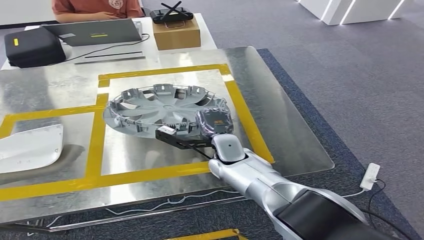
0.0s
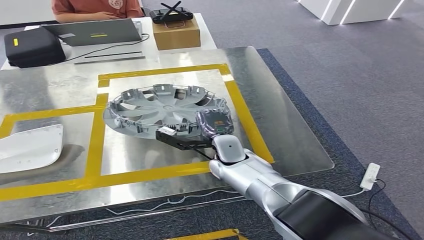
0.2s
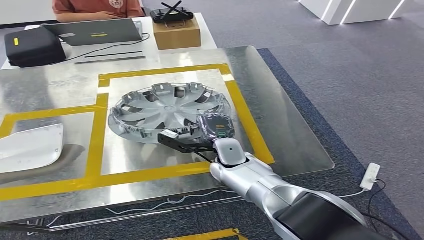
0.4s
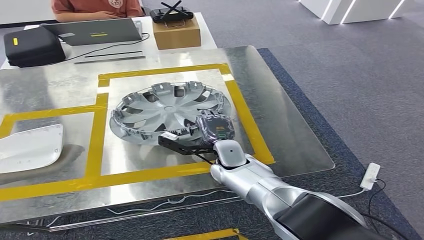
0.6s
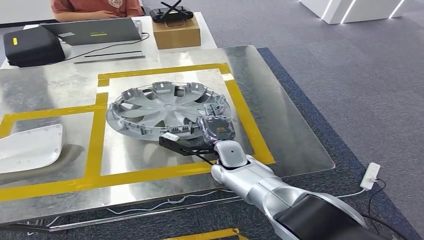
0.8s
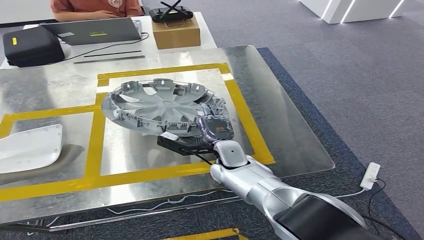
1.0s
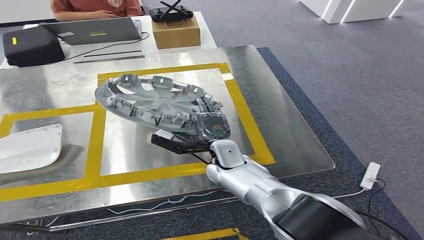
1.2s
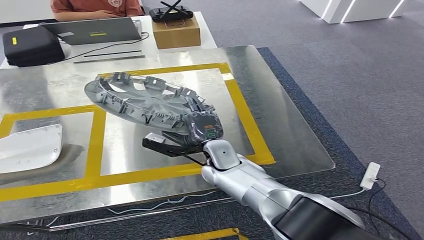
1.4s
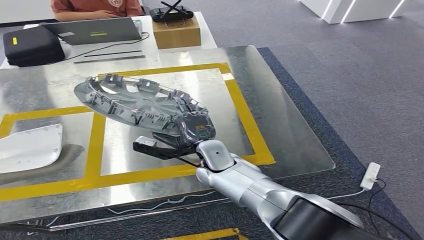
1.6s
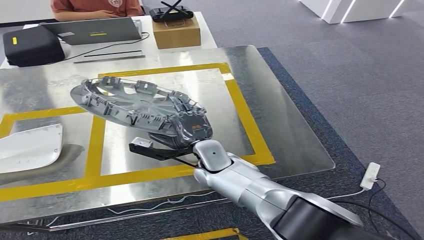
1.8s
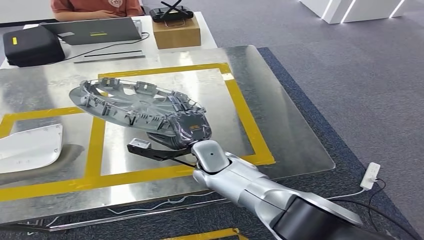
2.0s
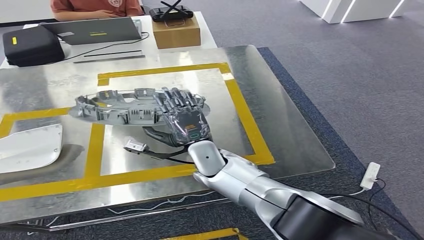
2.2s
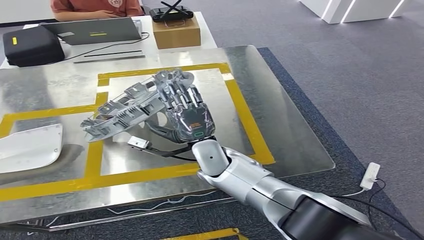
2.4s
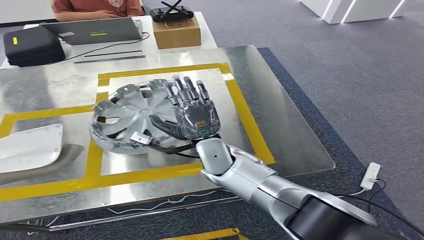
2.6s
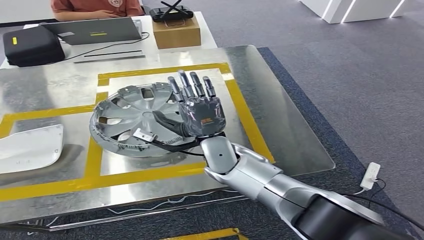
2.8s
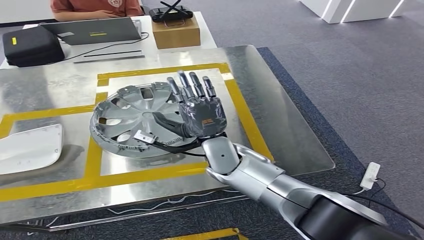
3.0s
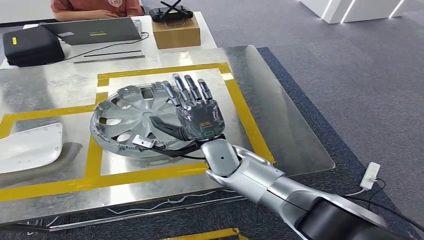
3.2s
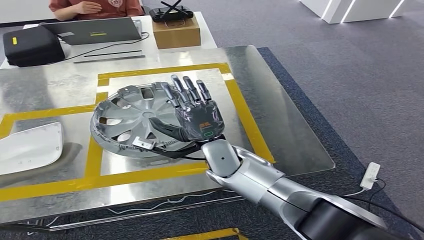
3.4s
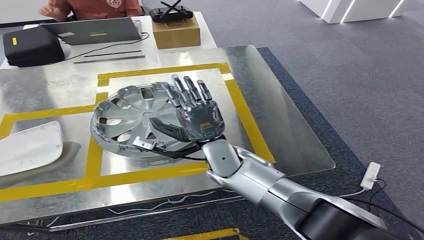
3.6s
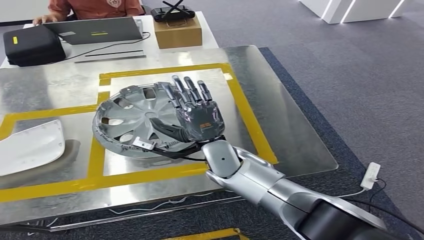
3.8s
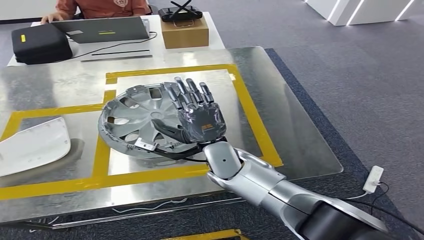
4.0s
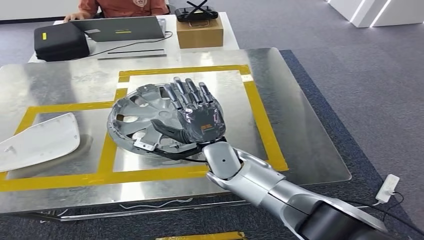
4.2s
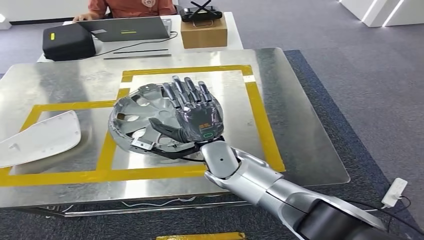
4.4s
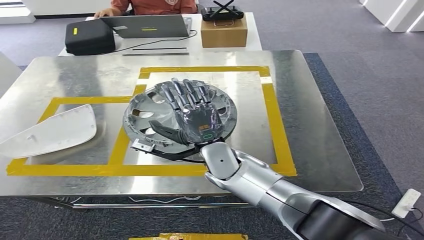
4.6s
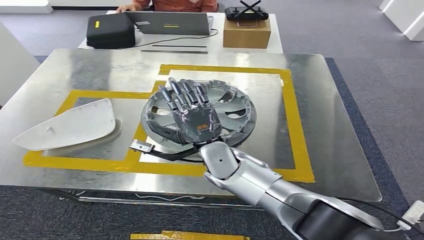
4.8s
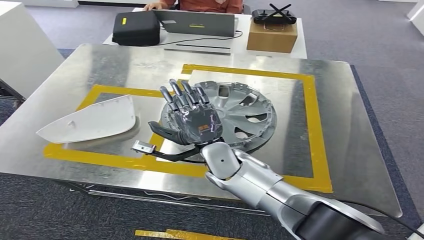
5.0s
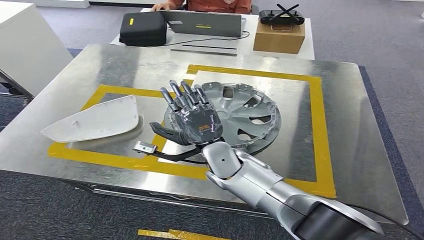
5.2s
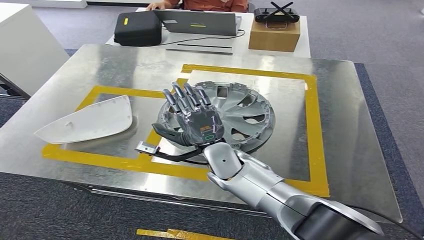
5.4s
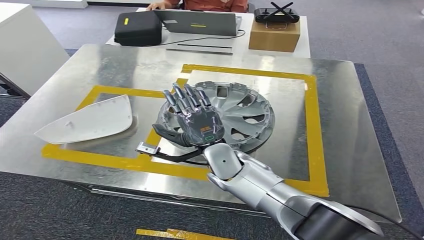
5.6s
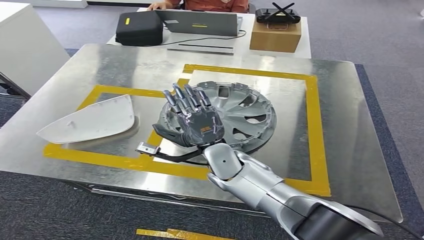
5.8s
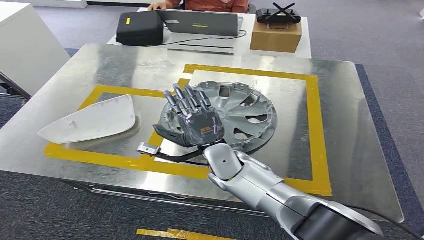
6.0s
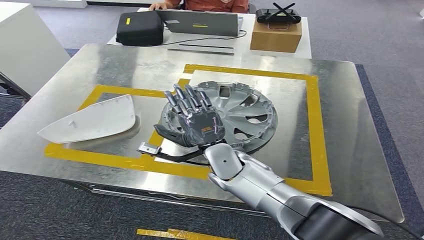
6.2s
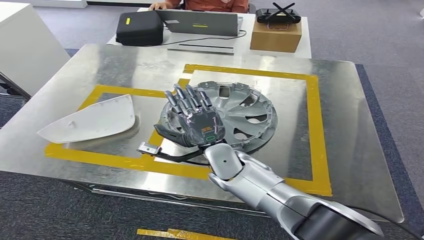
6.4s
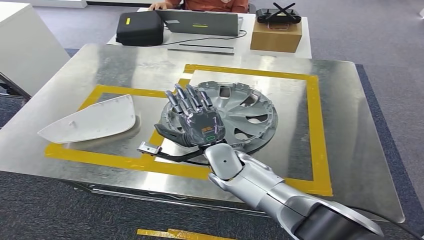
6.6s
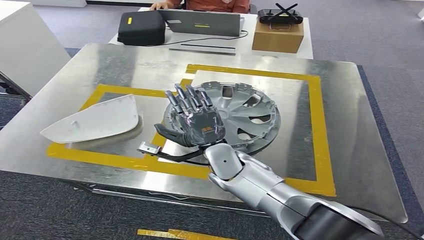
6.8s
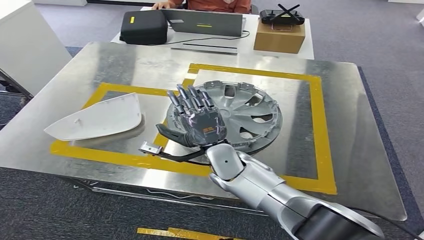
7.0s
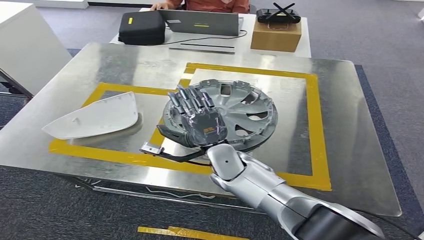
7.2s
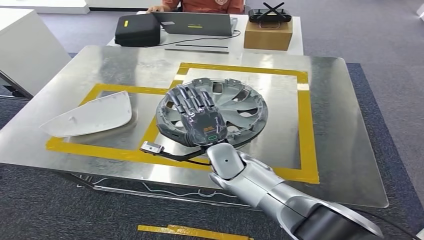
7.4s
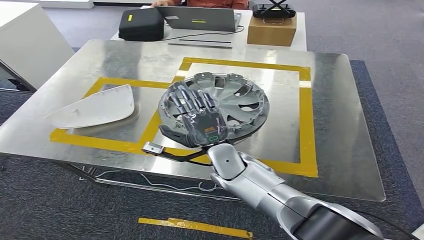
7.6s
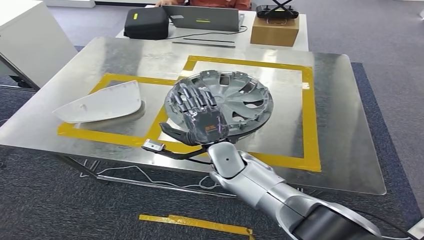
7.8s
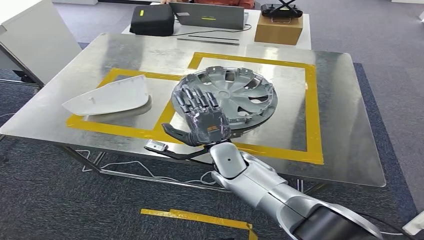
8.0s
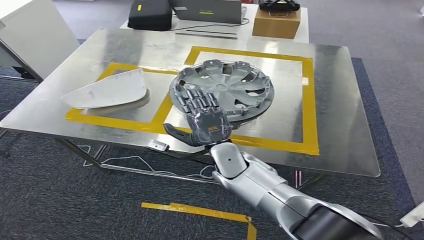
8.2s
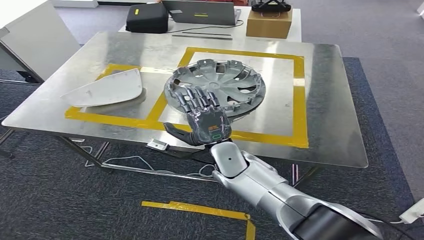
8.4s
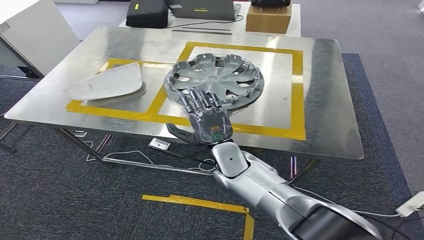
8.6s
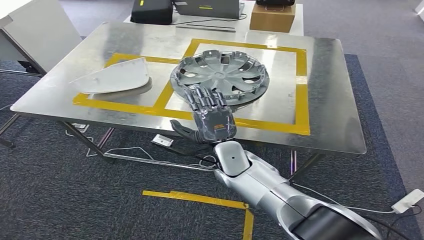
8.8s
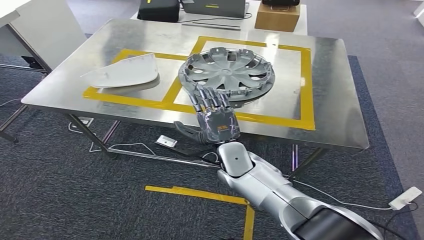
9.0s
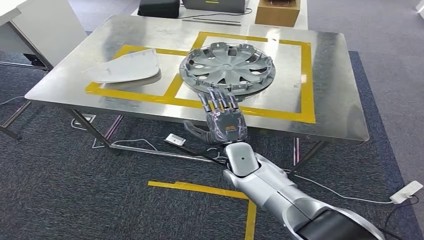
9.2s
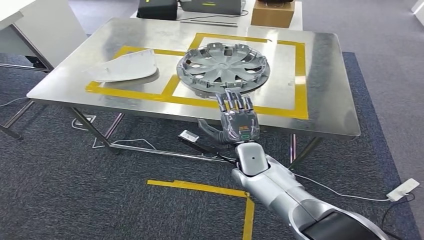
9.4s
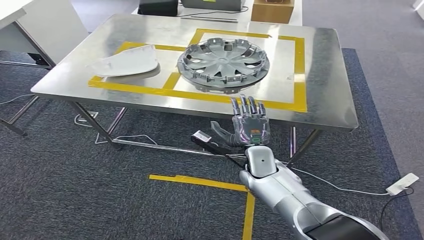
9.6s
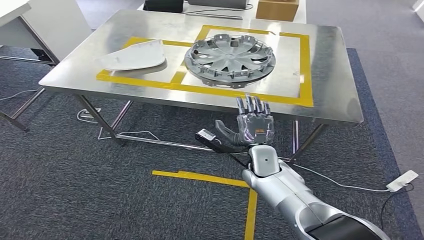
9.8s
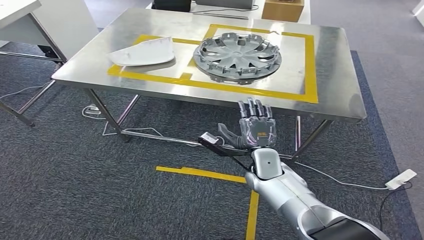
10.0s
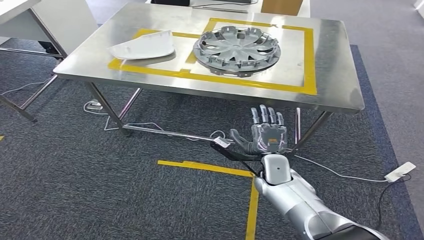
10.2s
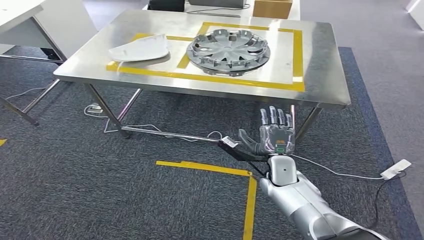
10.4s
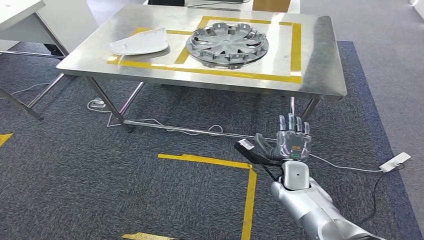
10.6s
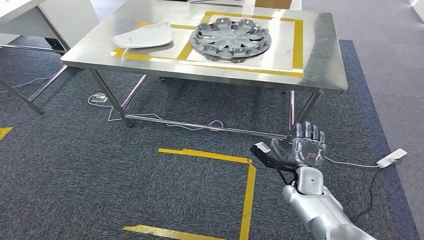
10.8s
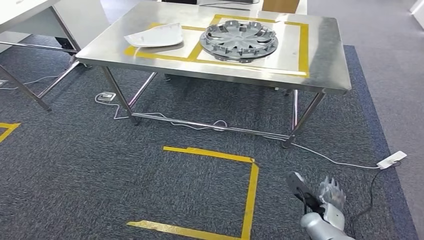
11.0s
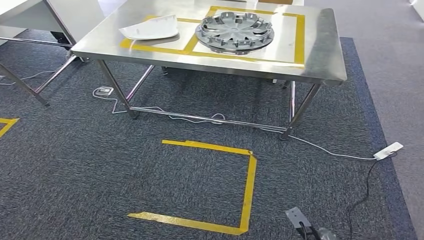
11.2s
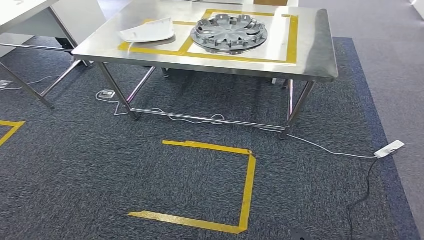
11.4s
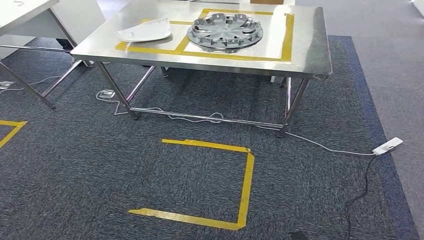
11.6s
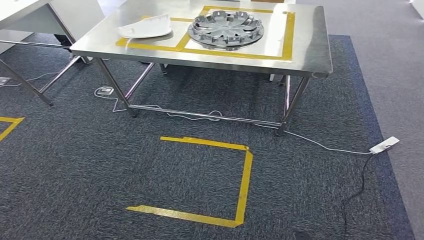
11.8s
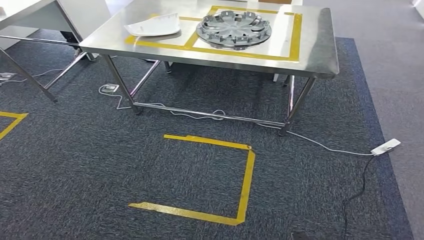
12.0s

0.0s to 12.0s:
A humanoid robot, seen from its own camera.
Step, 0.0s to 3.8s: Insert the small component into the corresponding slot on the workbench.
0.0s to 1.6s: There are only small adjustments of the hands.

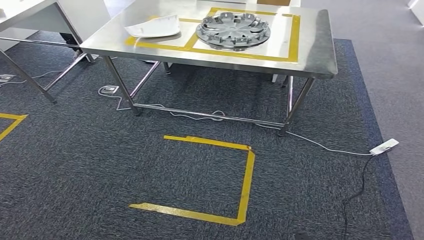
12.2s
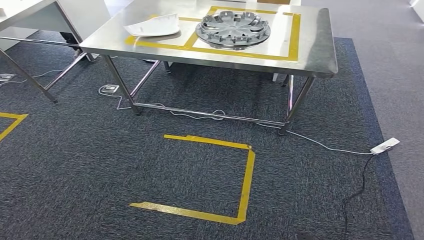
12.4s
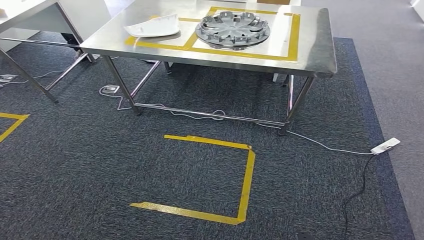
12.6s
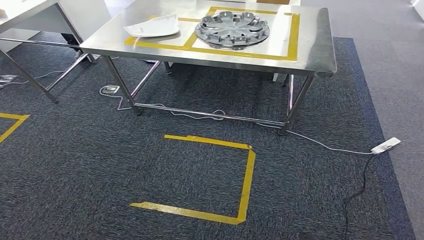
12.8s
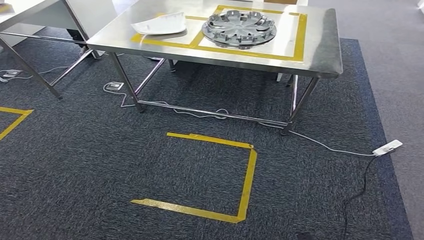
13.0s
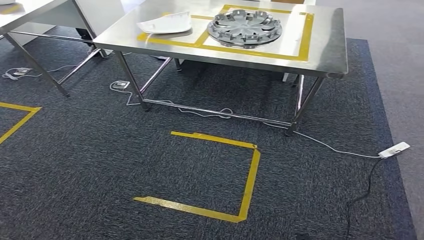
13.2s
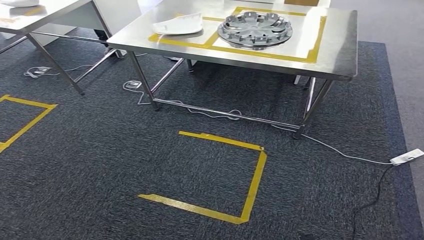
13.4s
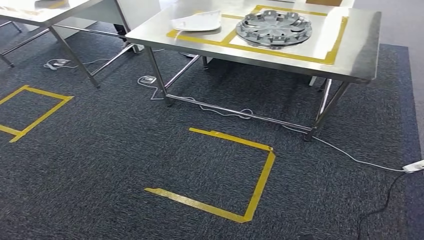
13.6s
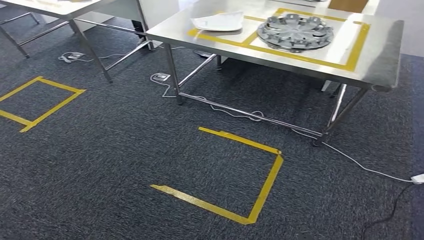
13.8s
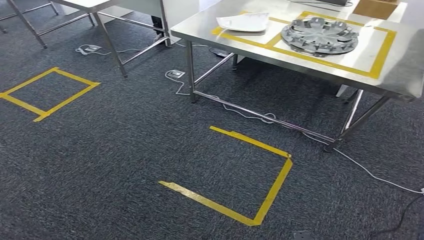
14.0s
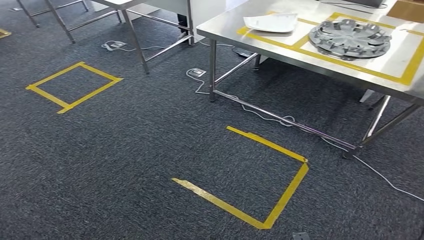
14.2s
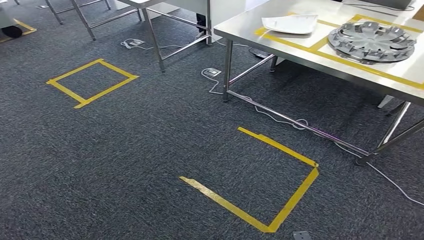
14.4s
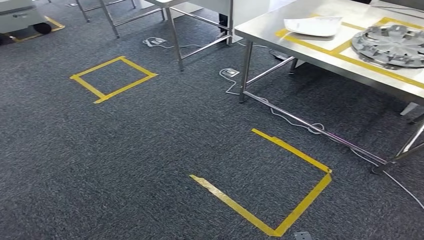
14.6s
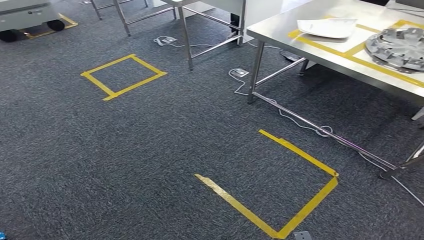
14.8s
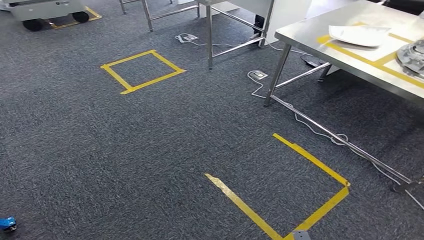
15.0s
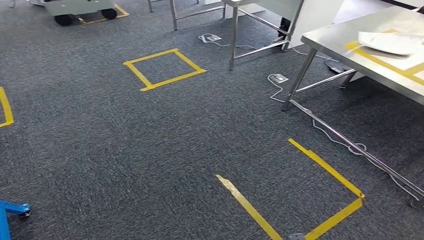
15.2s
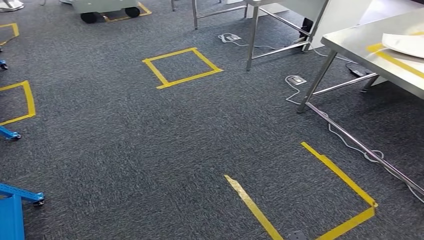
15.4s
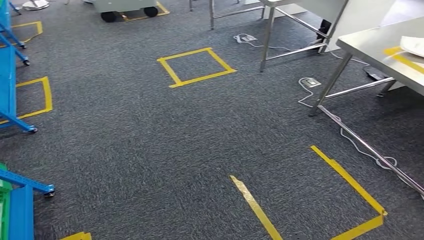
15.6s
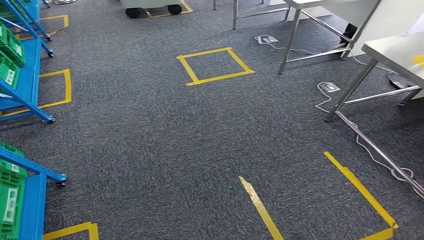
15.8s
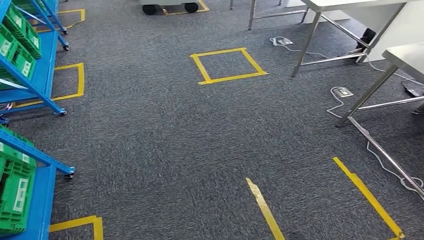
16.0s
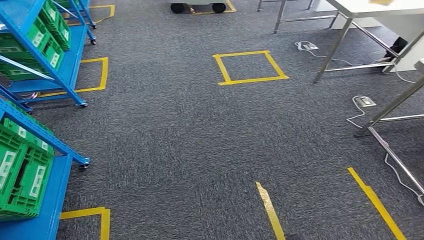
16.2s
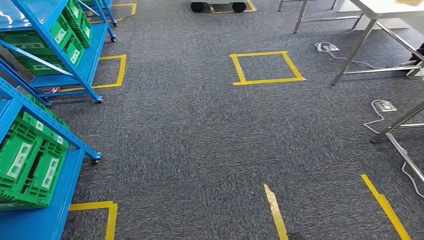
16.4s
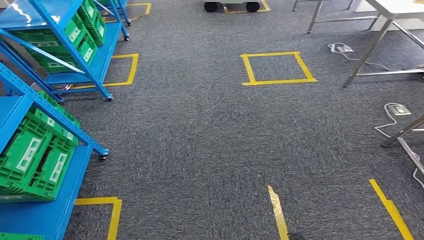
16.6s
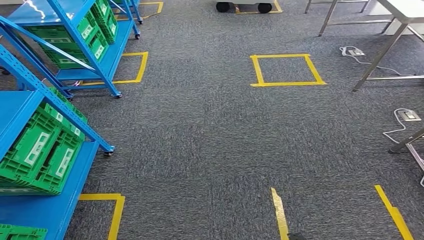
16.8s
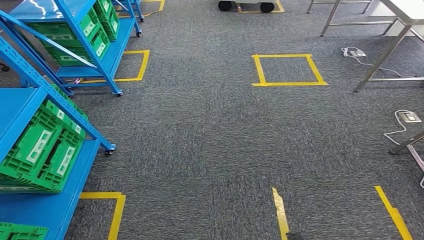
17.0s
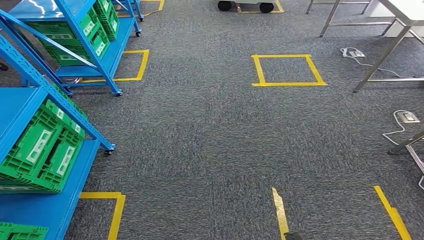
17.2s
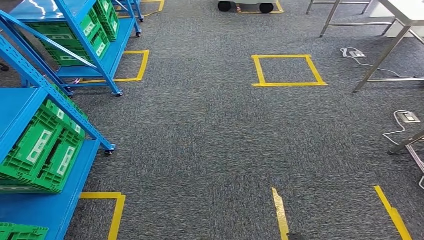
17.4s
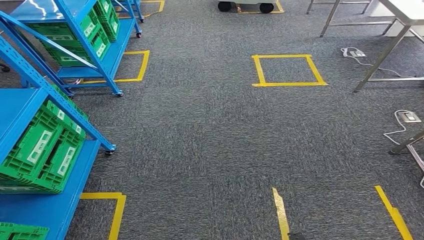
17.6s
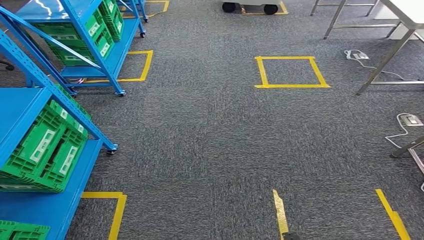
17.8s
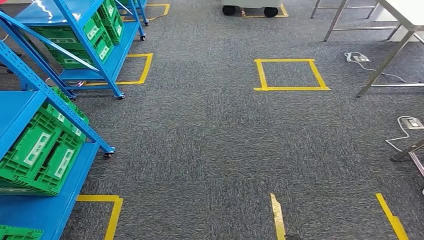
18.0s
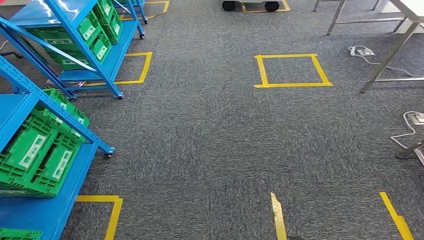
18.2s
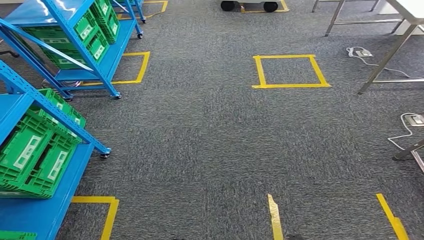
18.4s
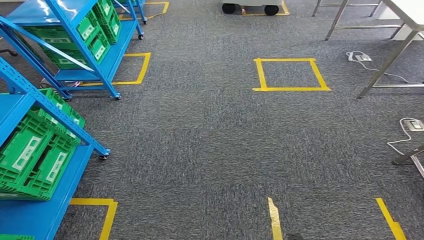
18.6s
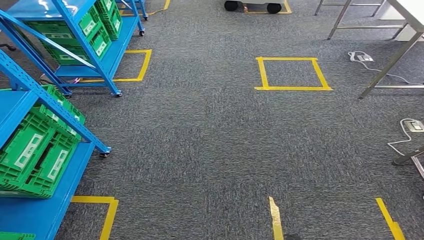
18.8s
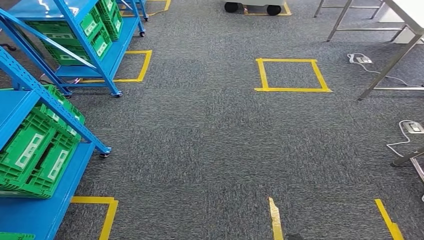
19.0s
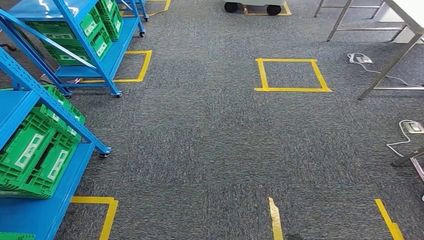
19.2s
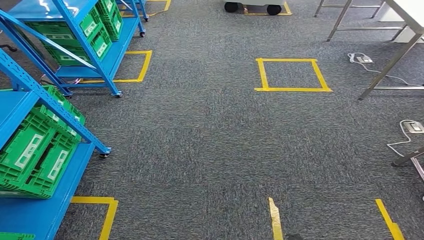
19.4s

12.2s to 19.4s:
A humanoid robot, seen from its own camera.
18.0s to 19.4s: Both hands stay put.
